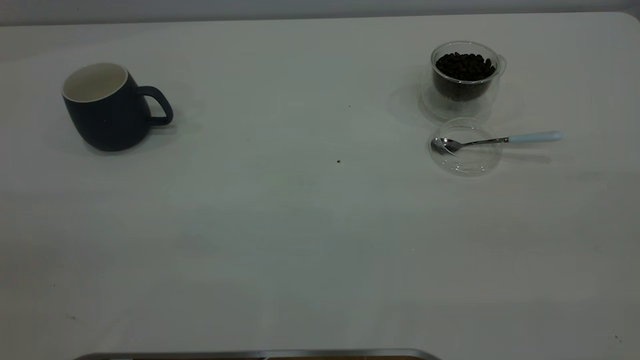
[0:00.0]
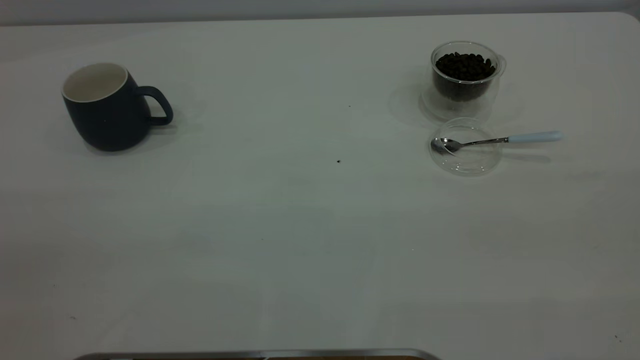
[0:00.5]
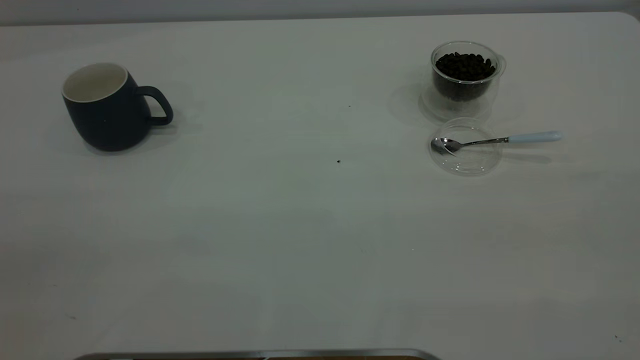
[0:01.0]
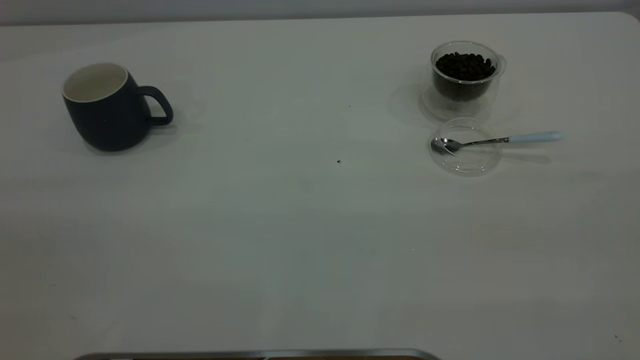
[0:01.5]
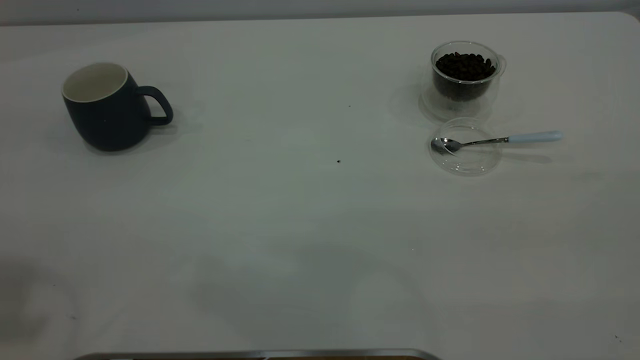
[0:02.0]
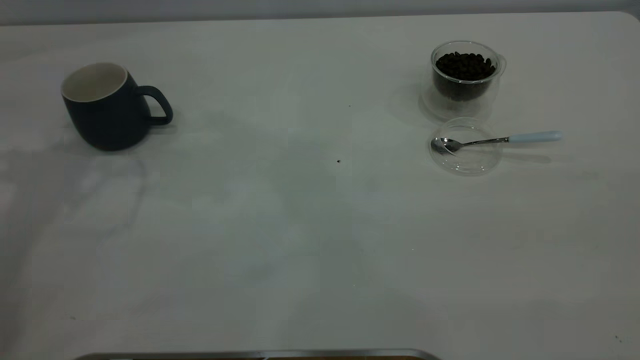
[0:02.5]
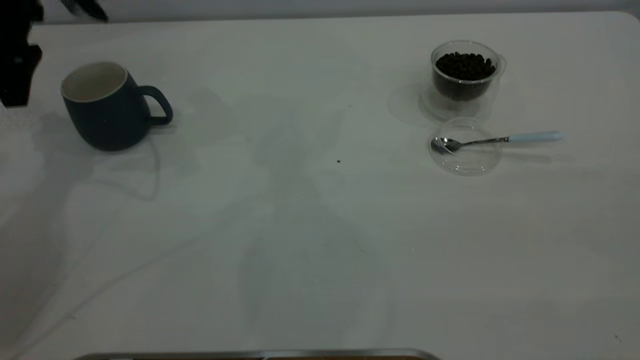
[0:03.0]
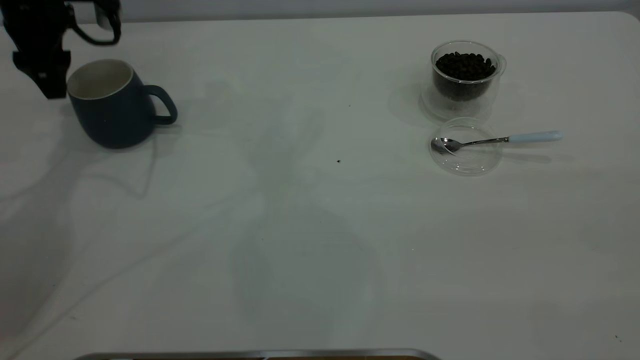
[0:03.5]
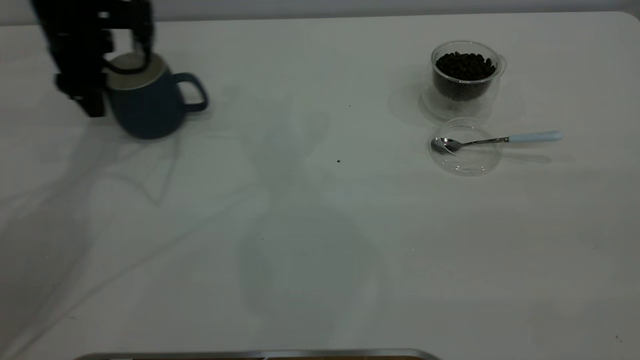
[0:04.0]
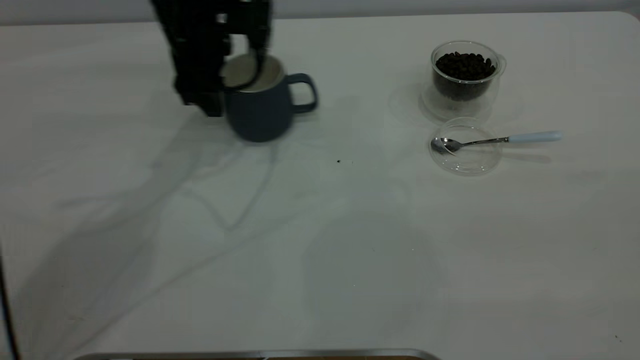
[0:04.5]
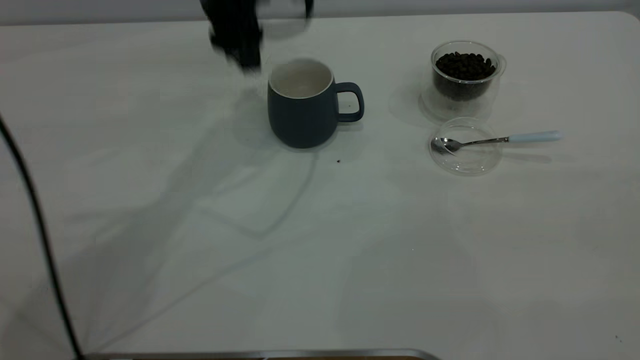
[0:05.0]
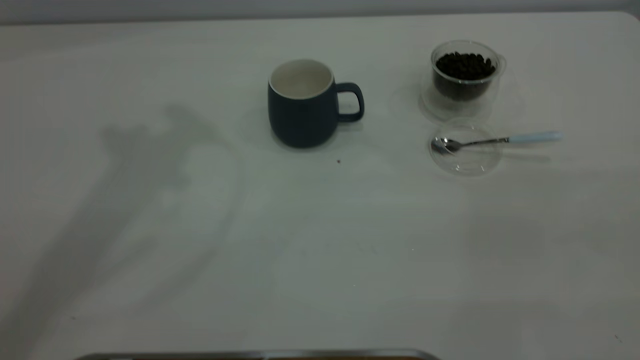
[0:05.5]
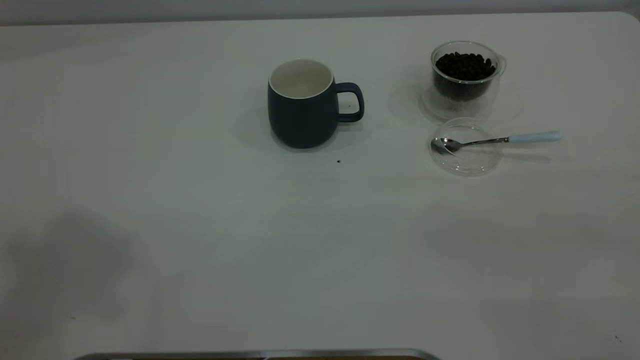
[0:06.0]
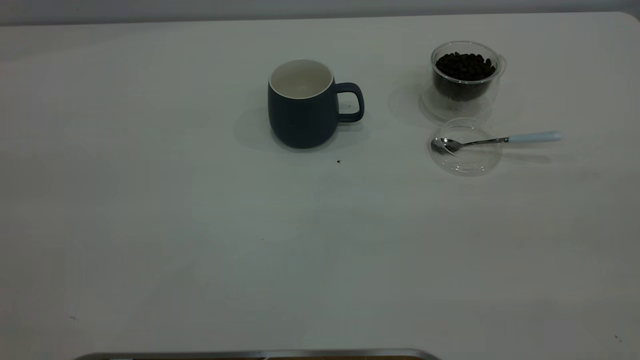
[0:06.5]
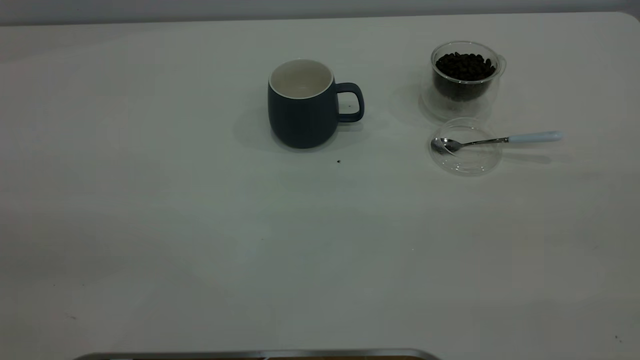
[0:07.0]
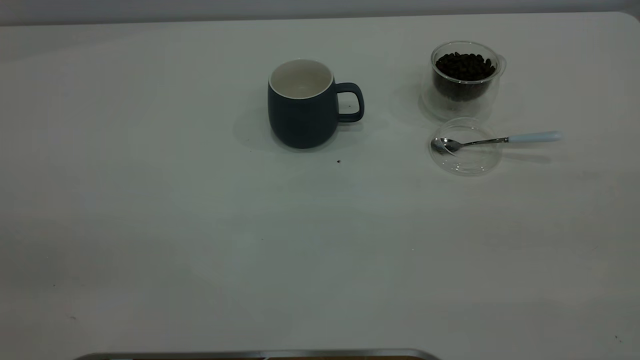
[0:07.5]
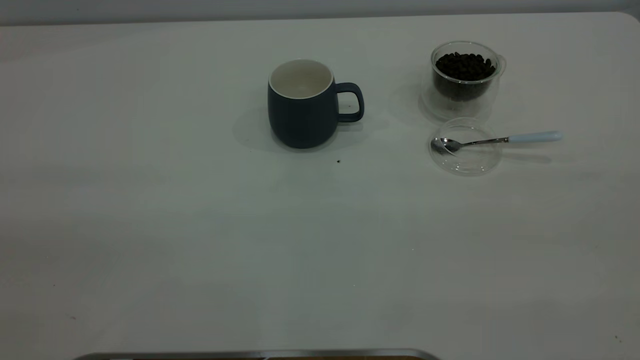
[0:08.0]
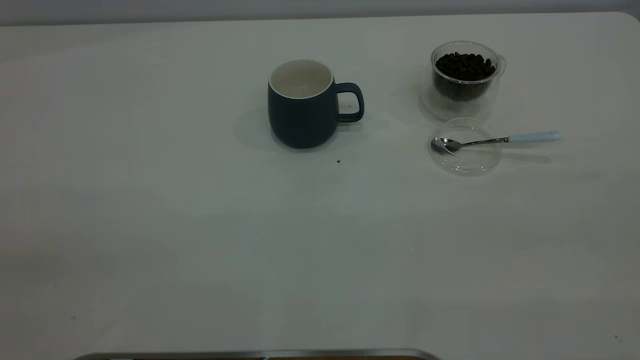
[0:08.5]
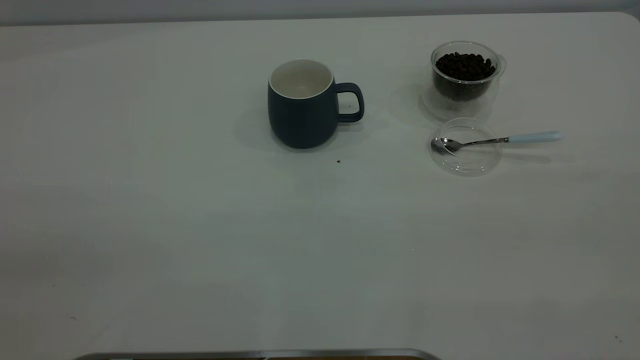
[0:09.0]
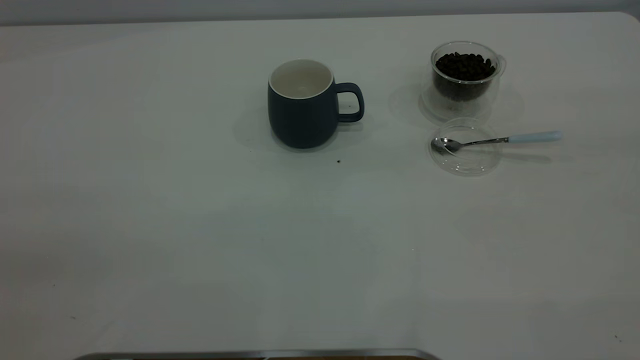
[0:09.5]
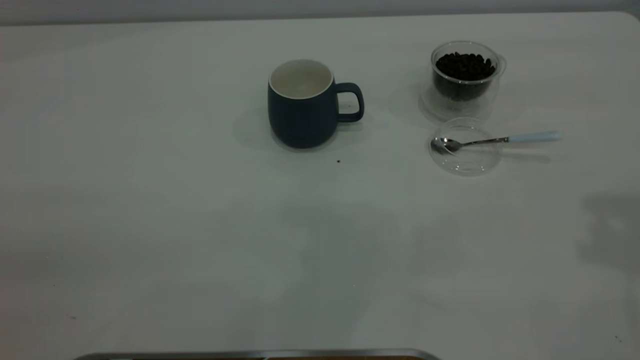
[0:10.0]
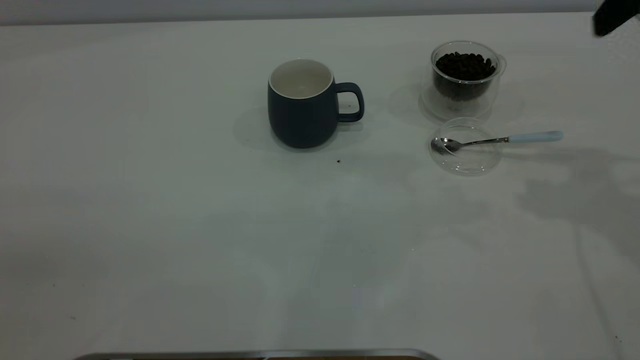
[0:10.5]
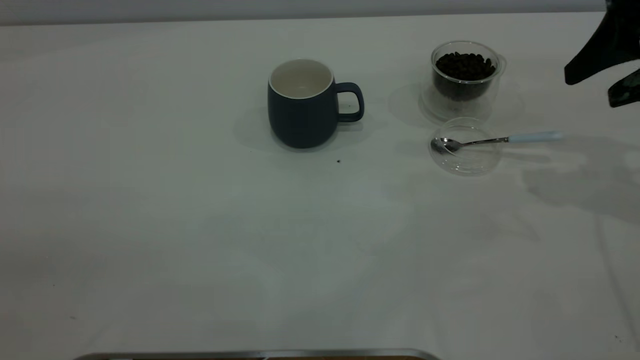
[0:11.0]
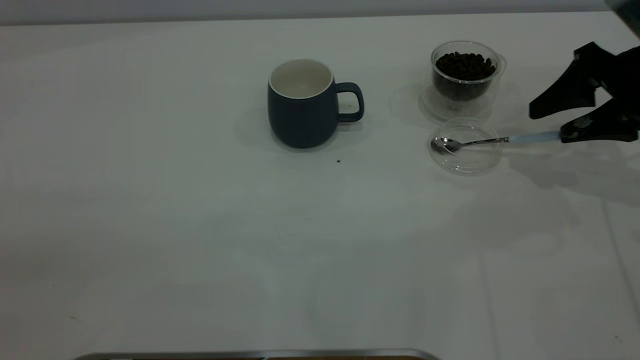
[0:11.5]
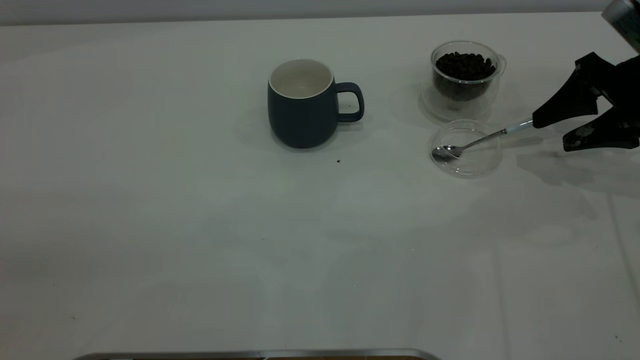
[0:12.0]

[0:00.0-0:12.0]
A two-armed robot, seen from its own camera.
Task of the whole recording: the left gripper place the grey cup in the center of the table, the right gripper take the blue spoon from the cup lid and scoop out the coffee beans from the coffee cup and put them into the grey cup, the right gripper put the spoon back into the cup lid.
Step, 0:00.0 to 0:04.5: Move the cup to the center of view.
0:02.0 to 0:04.0: The left gripper goes roughly 40 cm forward and downward.
0:04.0 to 0:06.0: The left gripper travels upward and backward by some 50 cm.
0:10.0 to 0:12.0: The right gripper shifts about 30 cm downward and forward.

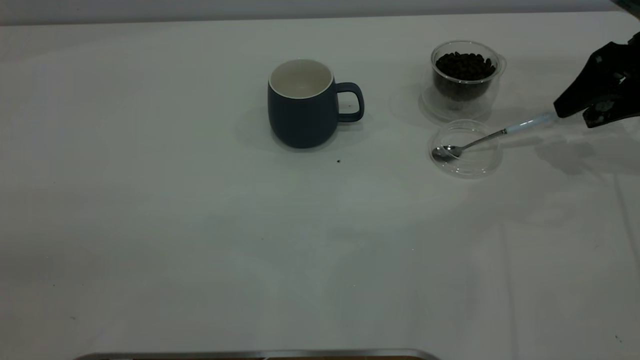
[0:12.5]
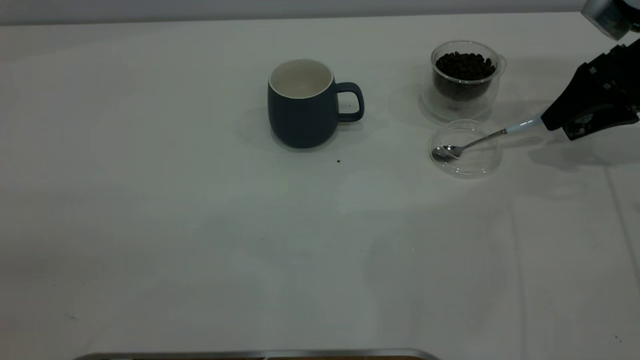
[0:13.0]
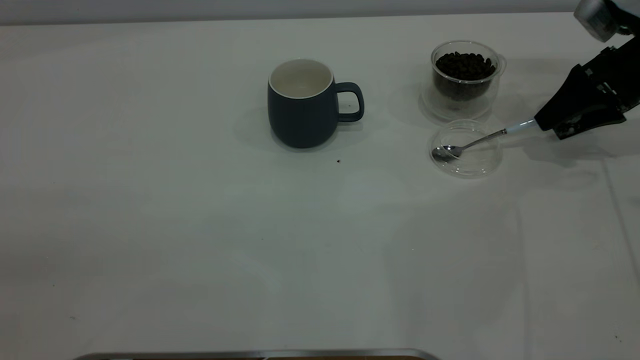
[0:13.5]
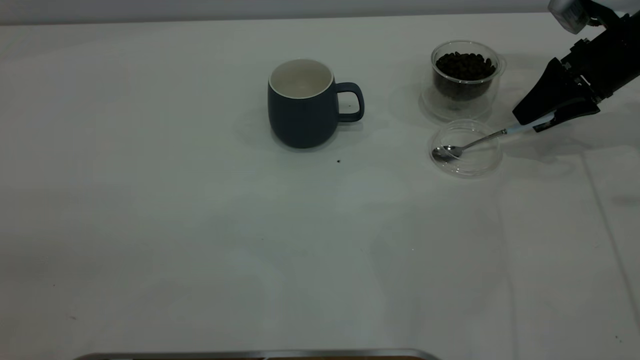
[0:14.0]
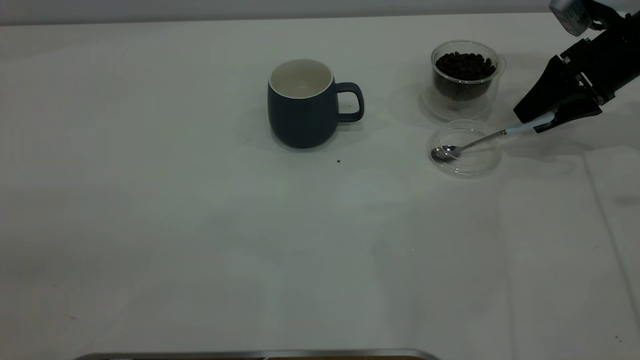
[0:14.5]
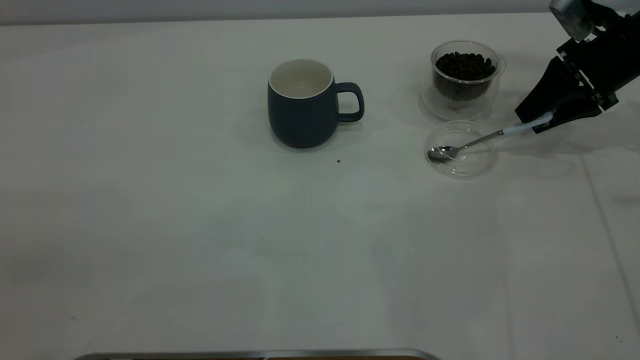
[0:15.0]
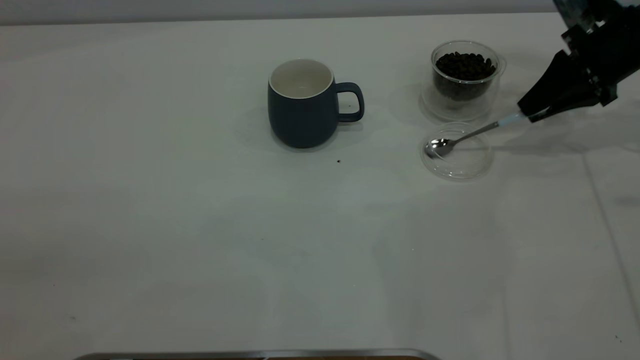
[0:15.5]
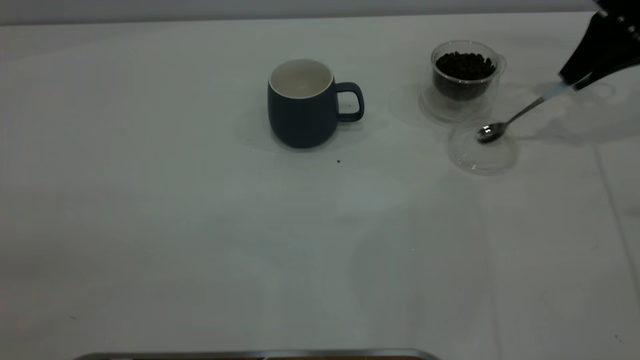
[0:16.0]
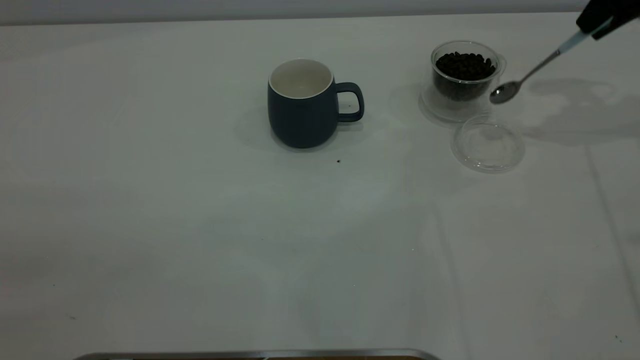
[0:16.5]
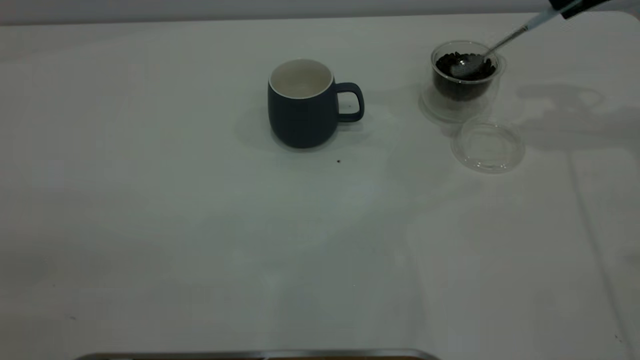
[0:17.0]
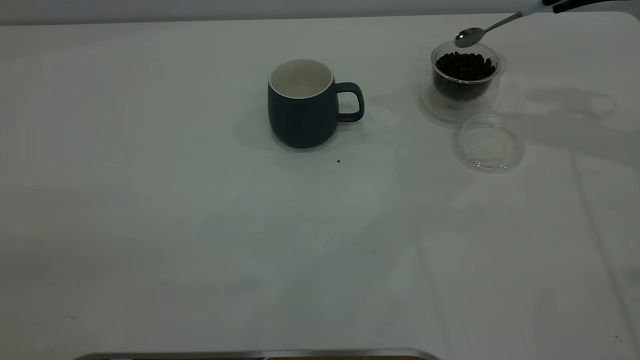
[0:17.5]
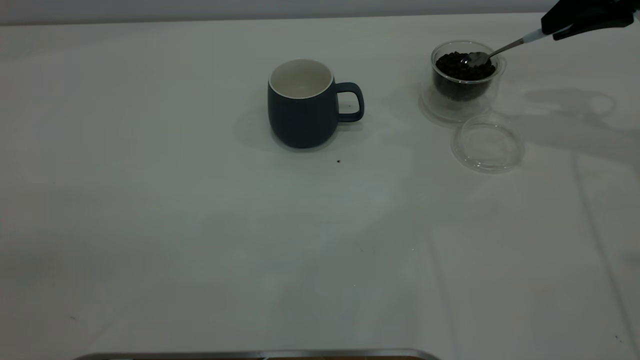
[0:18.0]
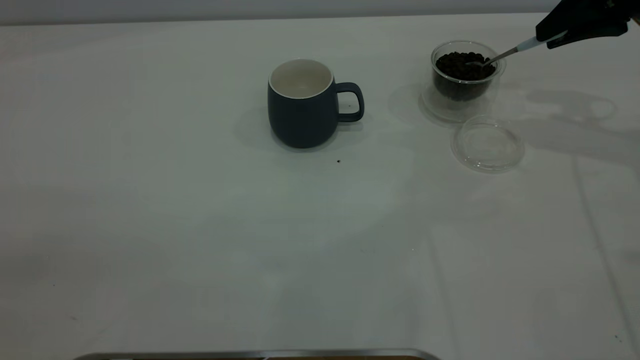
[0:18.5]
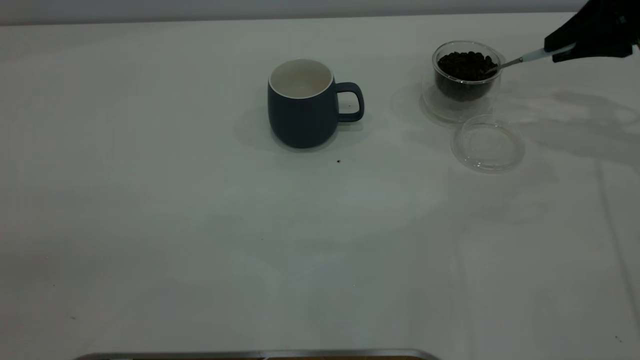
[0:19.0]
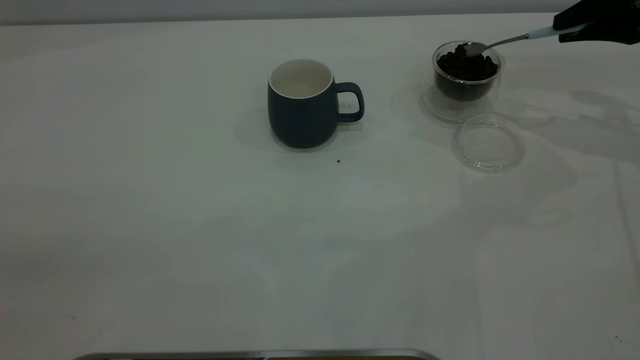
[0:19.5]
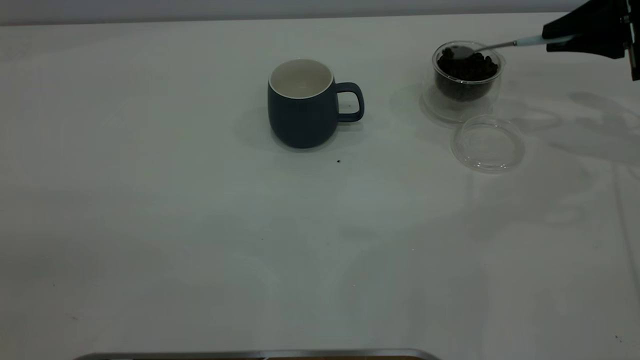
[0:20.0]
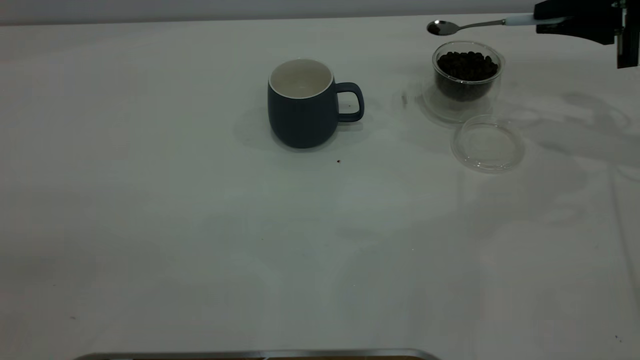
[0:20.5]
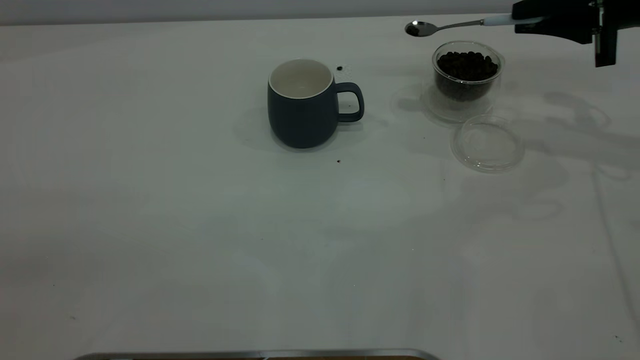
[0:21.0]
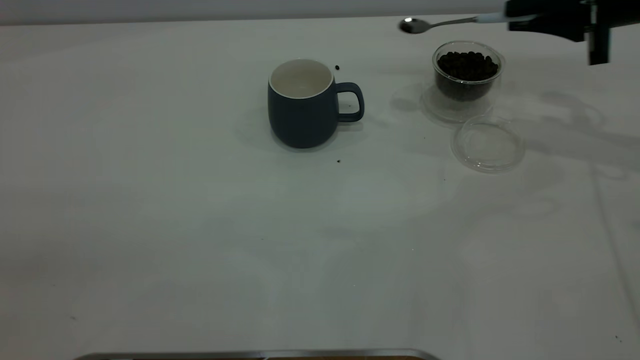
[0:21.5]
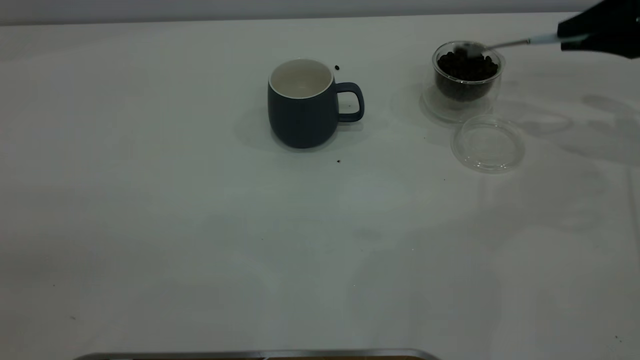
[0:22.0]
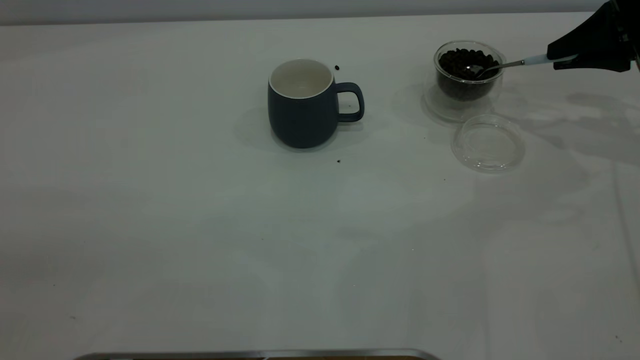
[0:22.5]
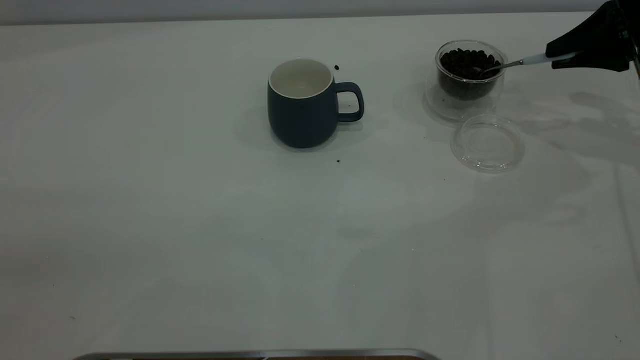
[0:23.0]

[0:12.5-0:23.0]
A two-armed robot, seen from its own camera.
Task of the whole recording: the left gripper place the grey cup in the center of the table, the right gripper take the blue spoon from the cup lid and scoop out the coffee beans from the coffee cup and put them into the grey cup, the right gripper put the spoon back into the cup lid.
Step, 0:12.5 to 0:16.0: Pick up the spoon.
0:12.5 to 0:14.5: The right gripper shifts by some 5 cm.
0:14.5 to 0:16.5: The right gripper shifts roughly 15 cm upward, and closes its fingers.
0:16.5 to 0:19.0: The right gripper heads downward, covering some 5 cm.
0:21.0 to 0:23.0: There are only small adjustments of the grippers.
